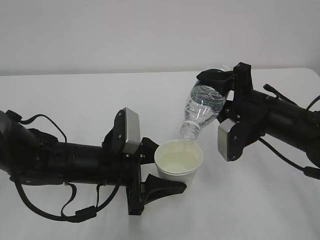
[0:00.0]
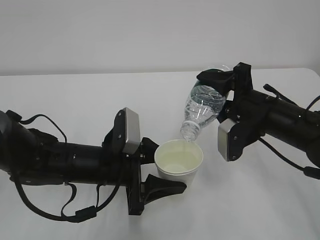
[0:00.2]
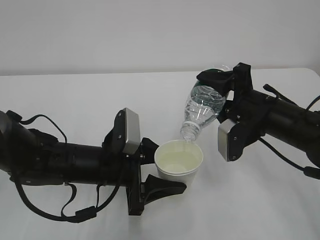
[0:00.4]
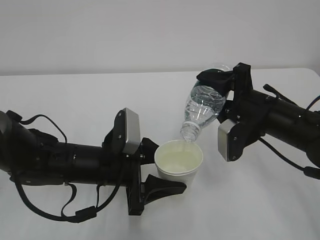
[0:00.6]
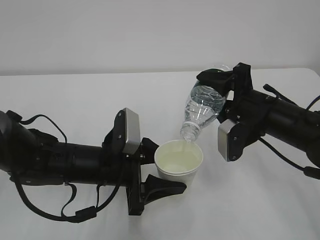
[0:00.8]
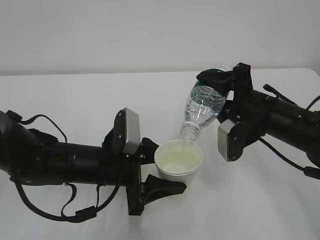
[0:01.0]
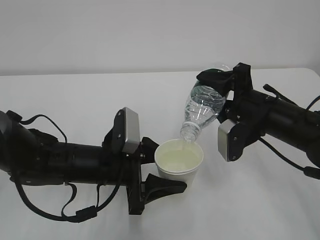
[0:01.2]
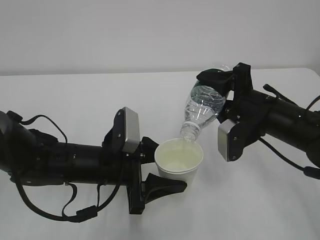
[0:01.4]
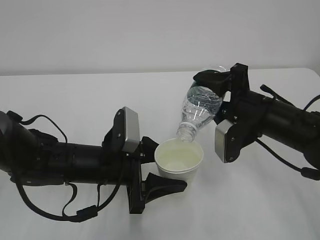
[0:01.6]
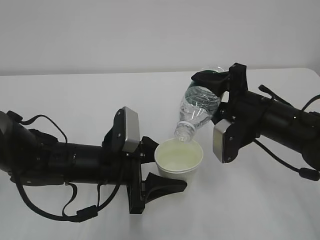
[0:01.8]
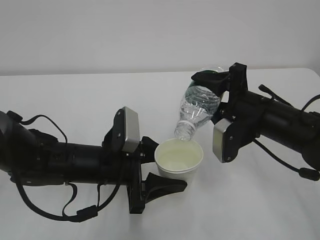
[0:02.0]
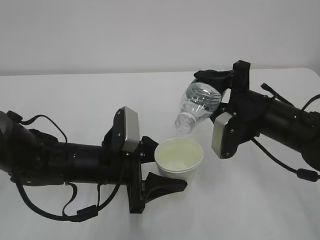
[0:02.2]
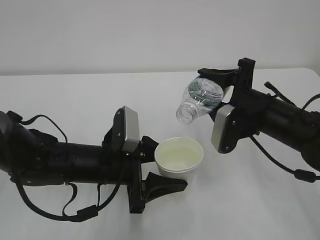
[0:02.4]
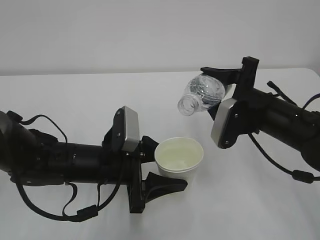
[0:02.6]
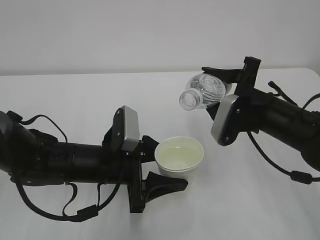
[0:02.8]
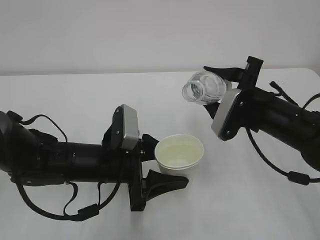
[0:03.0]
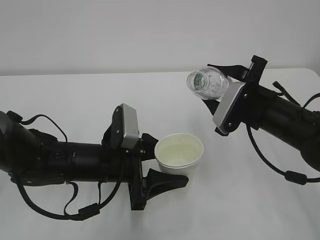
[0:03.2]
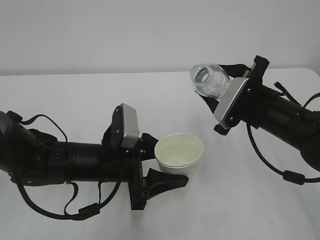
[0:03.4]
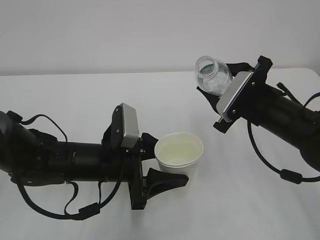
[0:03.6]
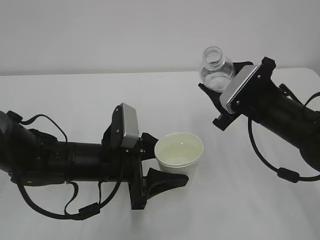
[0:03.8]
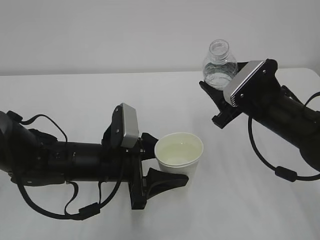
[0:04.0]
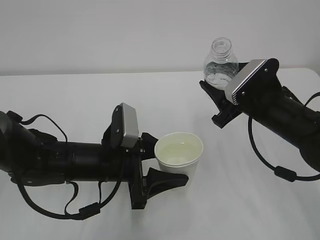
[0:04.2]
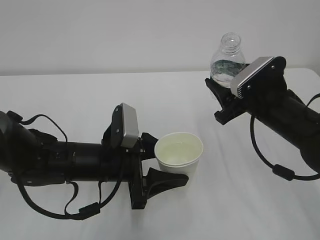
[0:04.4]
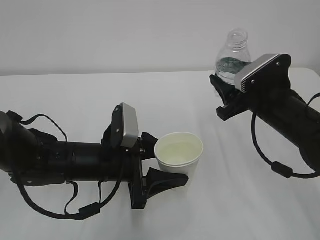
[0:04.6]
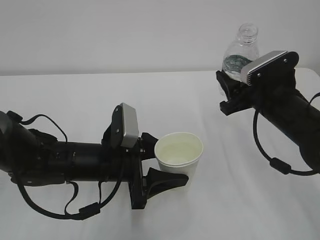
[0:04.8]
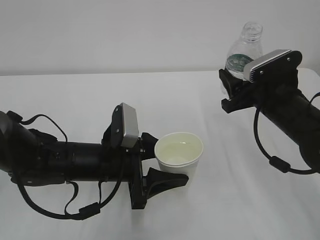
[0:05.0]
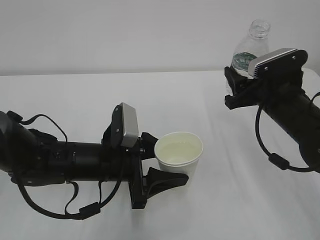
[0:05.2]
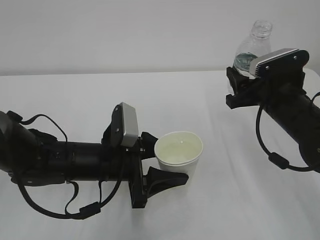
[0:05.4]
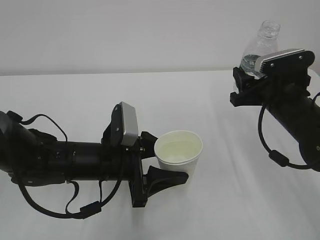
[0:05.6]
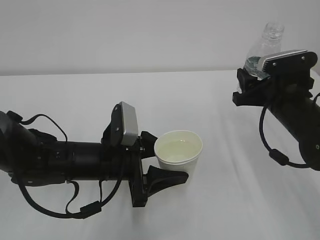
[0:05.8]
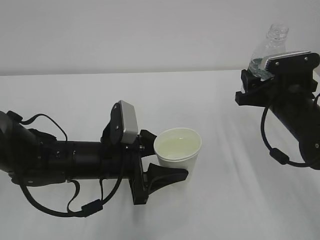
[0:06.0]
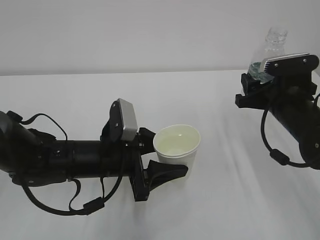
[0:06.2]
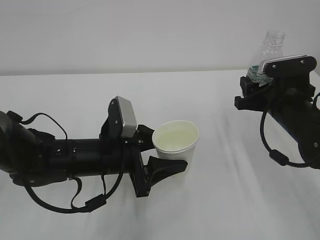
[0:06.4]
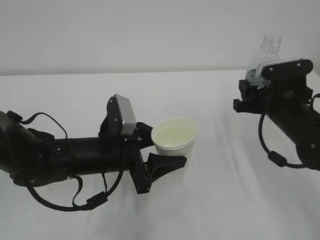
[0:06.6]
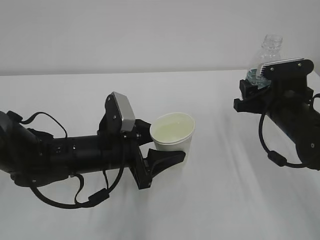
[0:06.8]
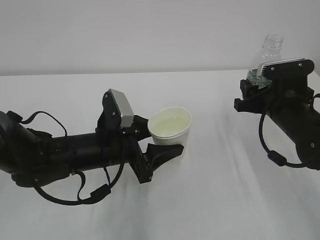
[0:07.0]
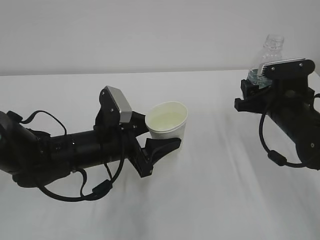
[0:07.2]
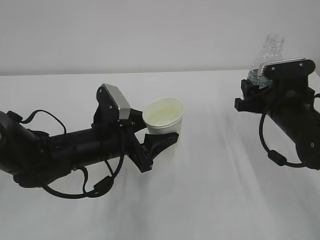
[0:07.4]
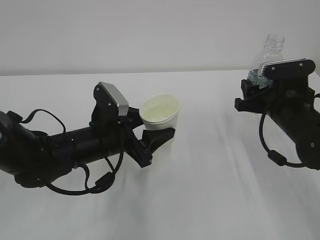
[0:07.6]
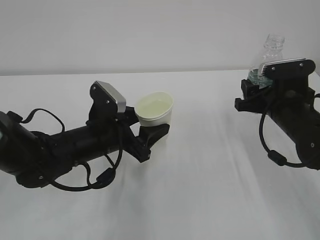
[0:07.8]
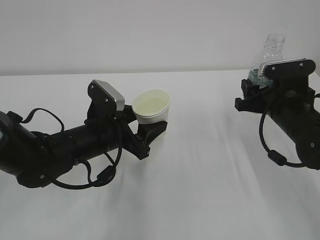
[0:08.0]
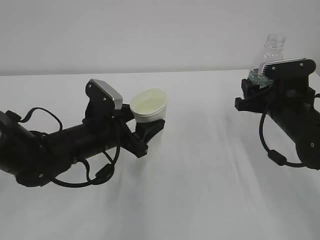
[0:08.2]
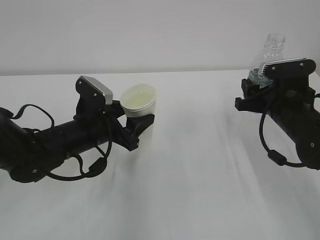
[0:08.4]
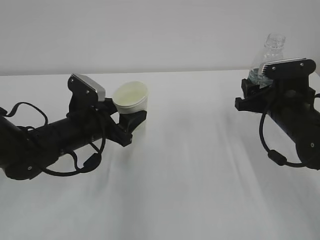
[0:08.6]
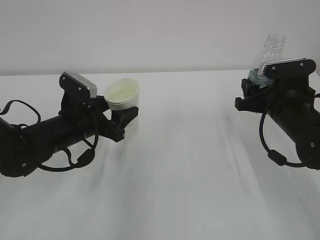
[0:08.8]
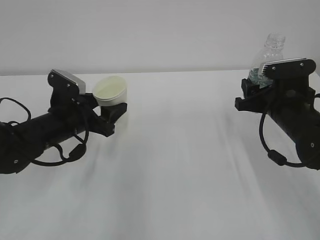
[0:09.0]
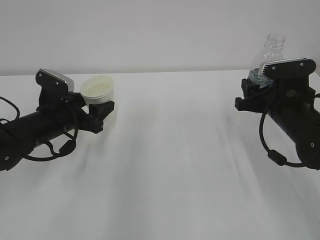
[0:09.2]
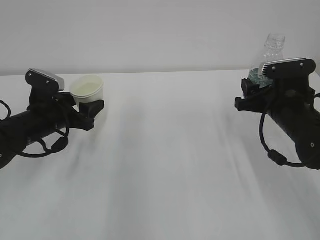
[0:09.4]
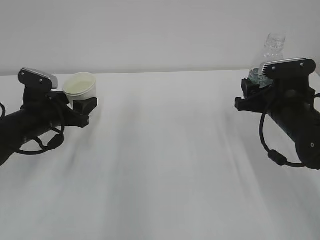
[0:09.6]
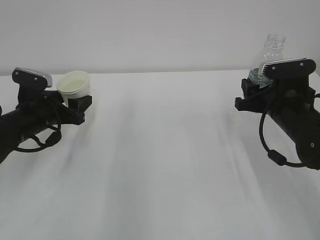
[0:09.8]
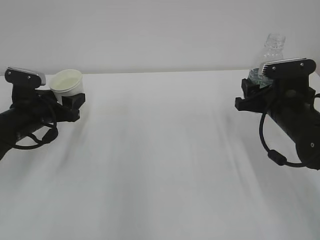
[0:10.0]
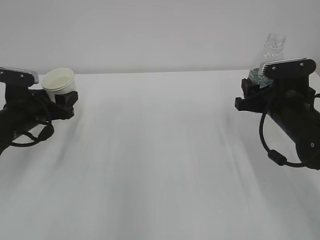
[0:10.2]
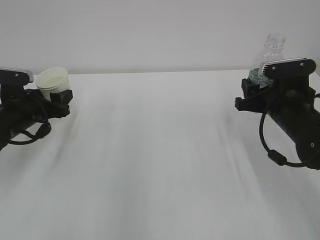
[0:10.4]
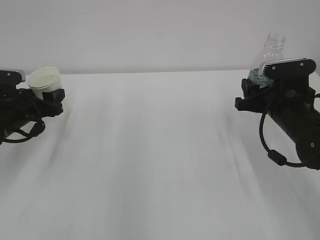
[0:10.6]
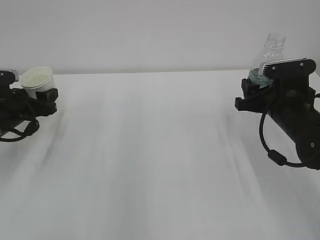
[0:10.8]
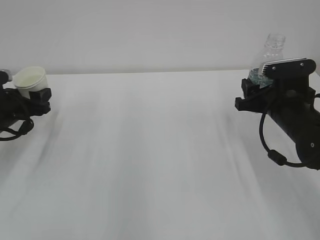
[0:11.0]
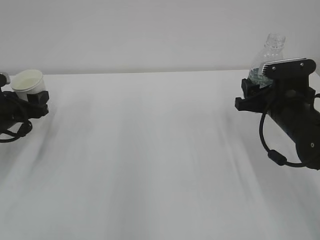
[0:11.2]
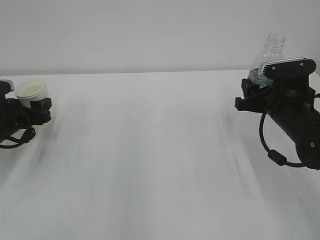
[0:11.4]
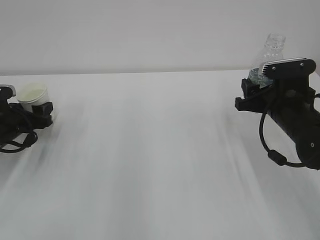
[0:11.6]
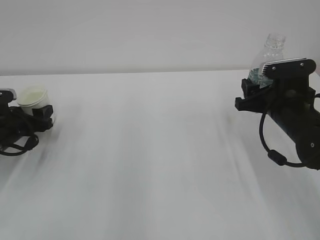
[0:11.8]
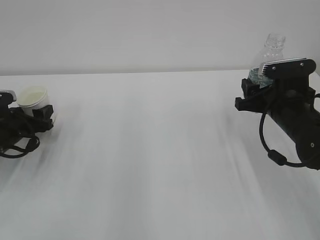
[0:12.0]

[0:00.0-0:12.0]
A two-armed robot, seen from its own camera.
0:00.0 to 0:01.6: The two grippers keep their place.
0:07.6 to 0:09.0: The left gripper shifts approximately 10 cm to the left.
0:09.0 to 0:10.4: The left gripper travels to the left by about 10 cm.
0:10.4 to 0:12.0: The left gripper ends up approximately 5 cm from where it was.

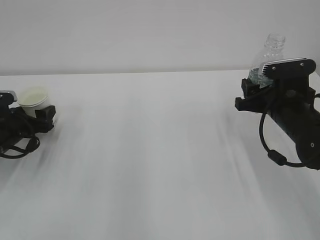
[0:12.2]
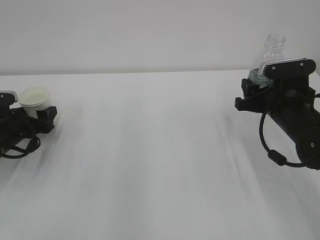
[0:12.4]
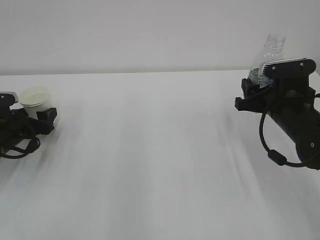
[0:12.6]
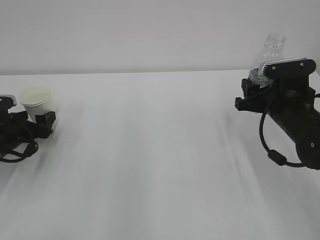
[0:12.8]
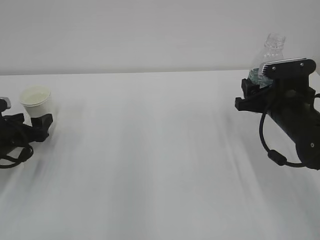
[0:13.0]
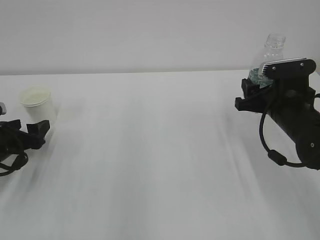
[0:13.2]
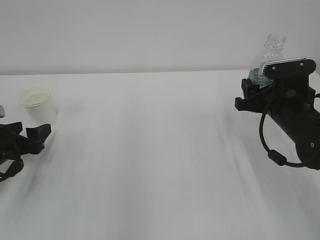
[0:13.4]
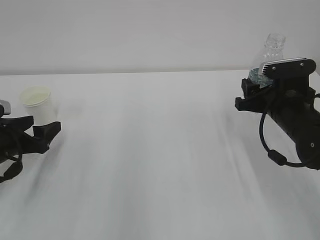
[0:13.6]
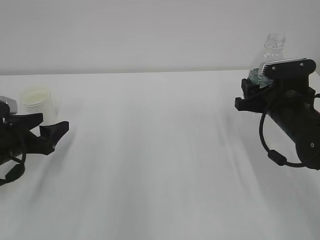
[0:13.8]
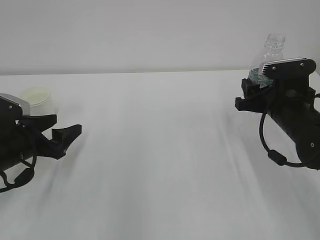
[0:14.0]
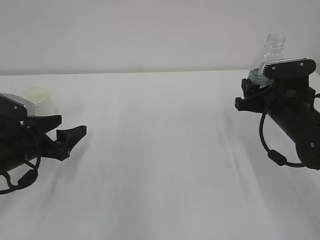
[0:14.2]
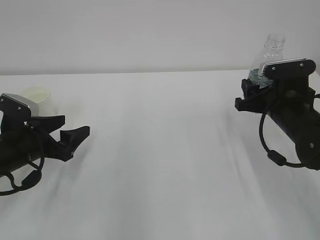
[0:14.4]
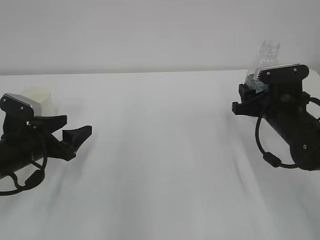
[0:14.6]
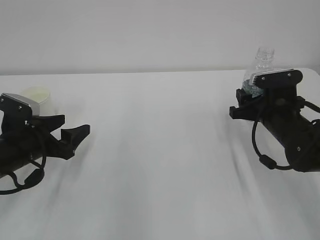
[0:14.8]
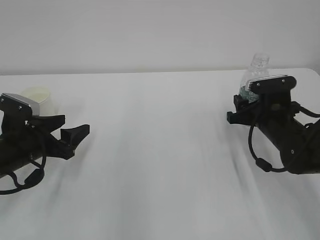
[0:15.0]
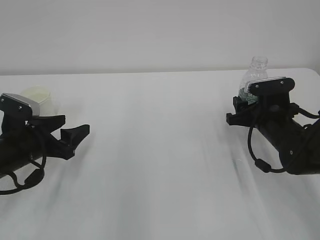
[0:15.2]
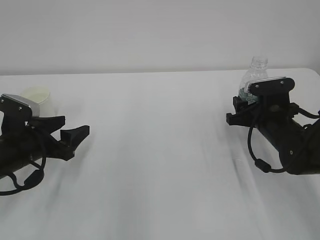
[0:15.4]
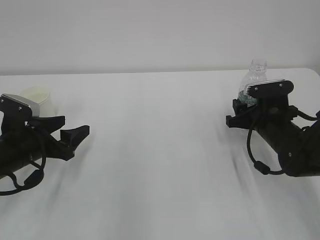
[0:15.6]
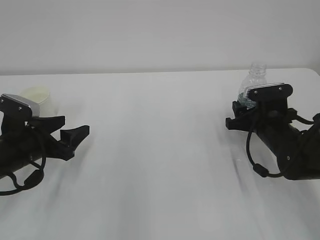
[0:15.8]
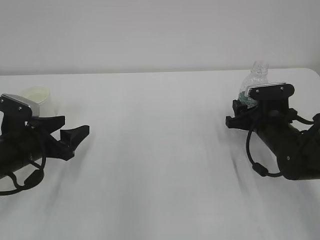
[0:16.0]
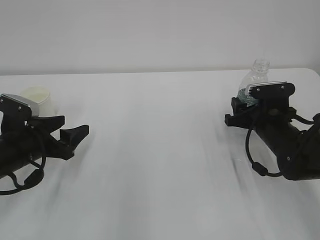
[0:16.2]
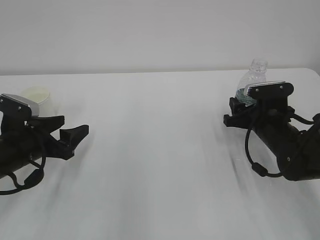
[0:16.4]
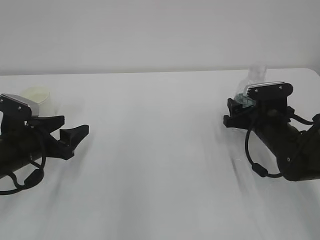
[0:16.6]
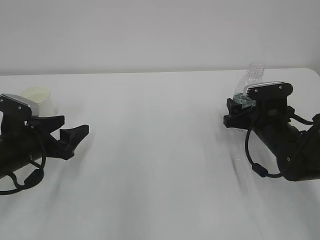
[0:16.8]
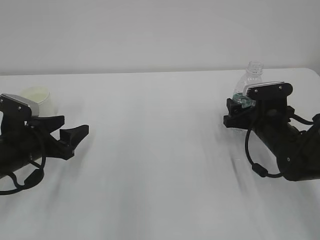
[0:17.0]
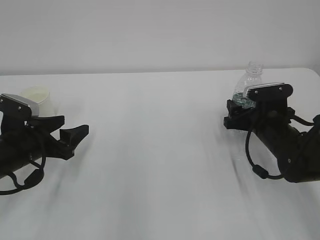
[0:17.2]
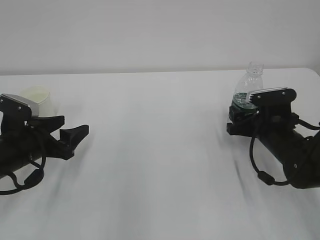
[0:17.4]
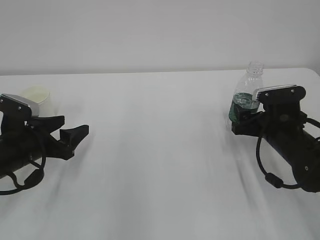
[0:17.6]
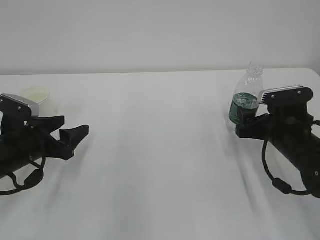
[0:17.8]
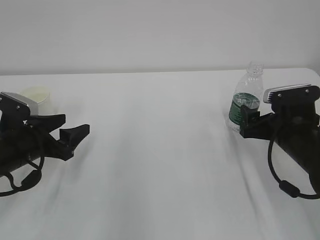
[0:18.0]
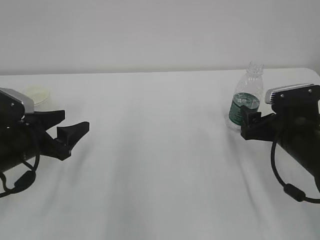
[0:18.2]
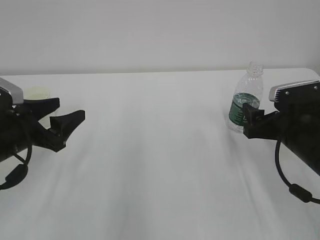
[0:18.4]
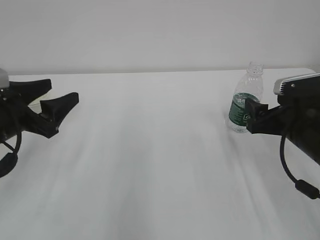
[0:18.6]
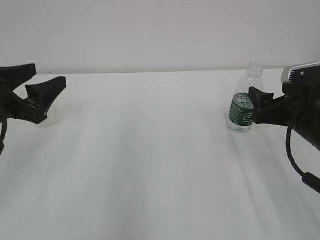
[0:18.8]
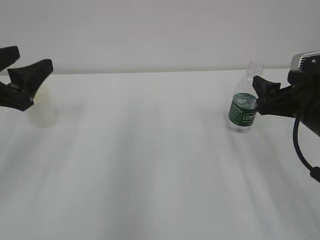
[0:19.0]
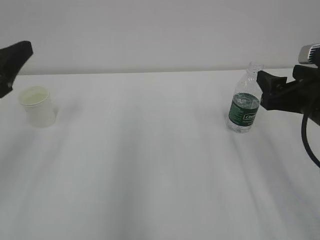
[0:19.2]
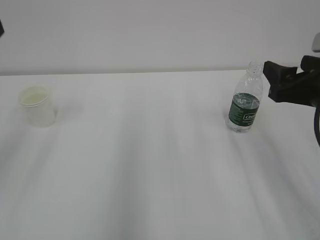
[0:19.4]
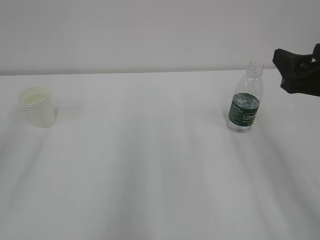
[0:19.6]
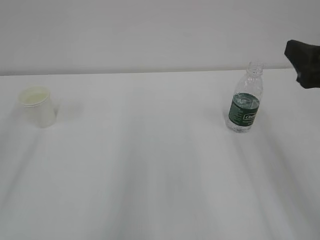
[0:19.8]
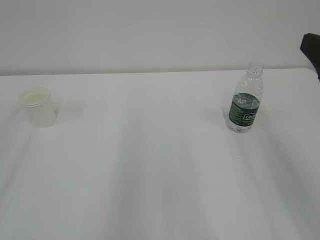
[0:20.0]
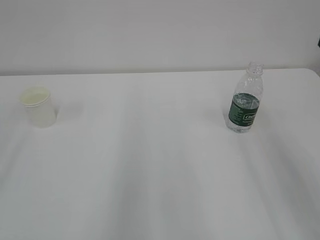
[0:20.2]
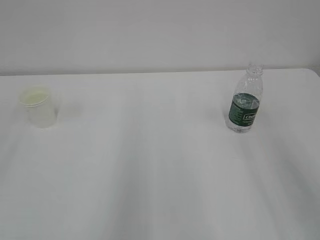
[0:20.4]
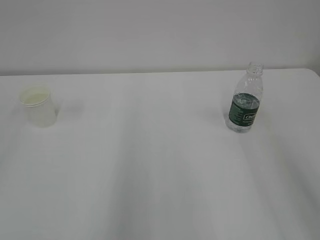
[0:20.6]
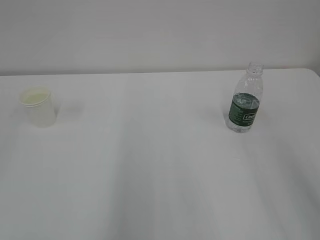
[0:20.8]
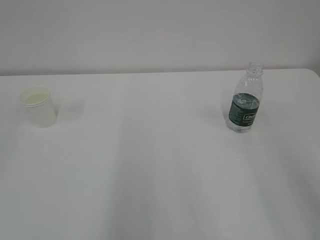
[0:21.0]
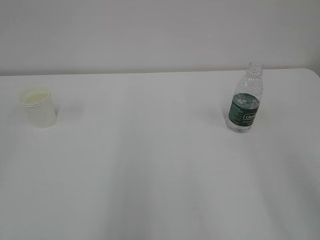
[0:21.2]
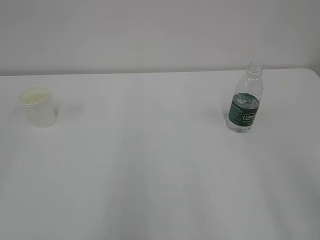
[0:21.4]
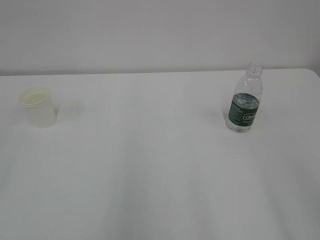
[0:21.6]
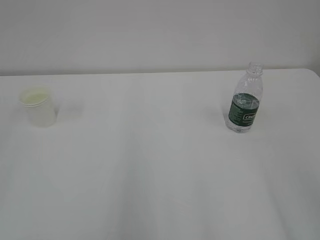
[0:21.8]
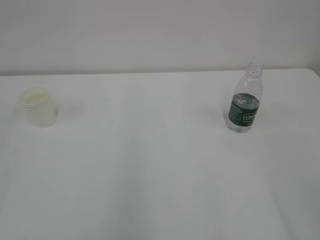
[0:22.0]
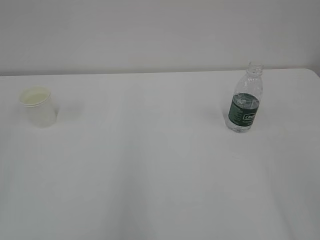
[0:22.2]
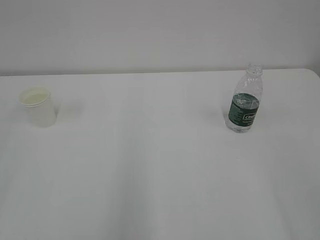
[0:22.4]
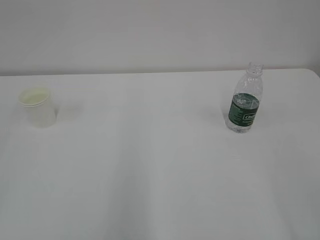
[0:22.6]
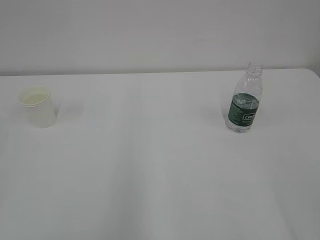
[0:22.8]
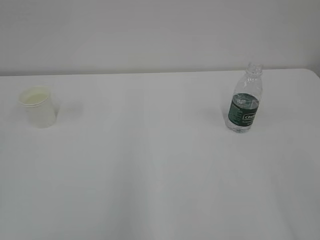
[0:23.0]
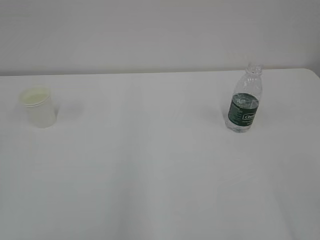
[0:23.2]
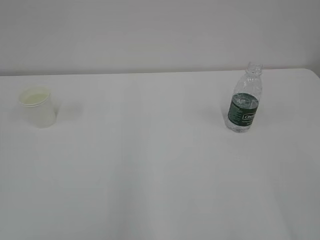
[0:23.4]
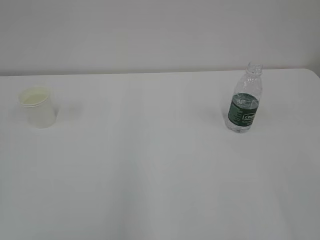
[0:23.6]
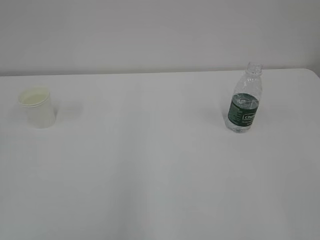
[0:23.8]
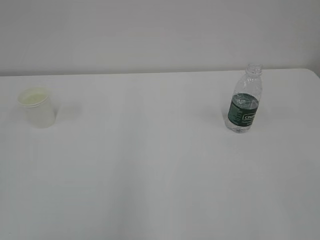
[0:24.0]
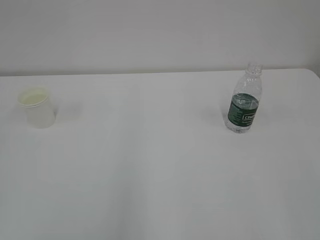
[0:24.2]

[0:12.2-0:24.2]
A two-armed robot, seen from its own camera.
0:12.2 to 0:13.8: The left gripper is displaced backward by some 5 cm.
0:13.8 to 0:15.2: The right gripper shifts by about 5 cm.
0:15.2 to 0:16.6: The right gripper opens.
0:16.6 to 0:18.2: The right gripper heads backward, covering roughly 5 cm.
0:18.2 to 0:19.8: Both grippers move upward and backward, some 20 cm.
0:19.8 to 0:21.2: The right gripper heads backward, covering some 15 cm.
